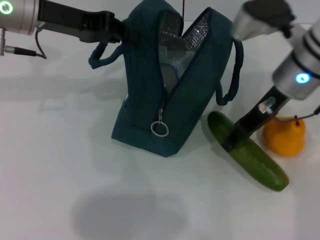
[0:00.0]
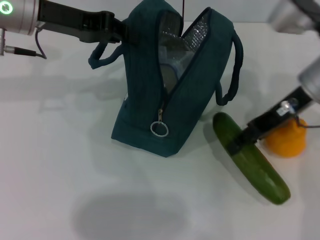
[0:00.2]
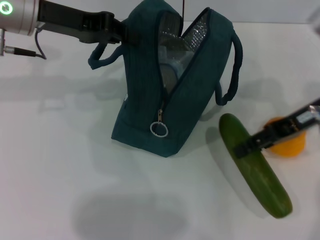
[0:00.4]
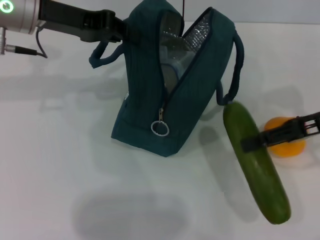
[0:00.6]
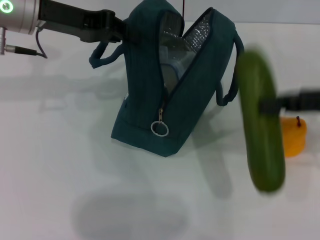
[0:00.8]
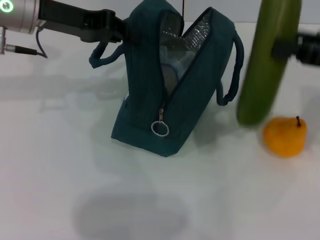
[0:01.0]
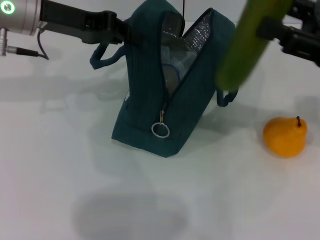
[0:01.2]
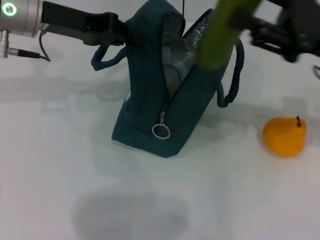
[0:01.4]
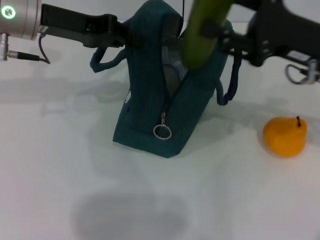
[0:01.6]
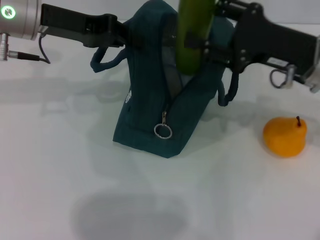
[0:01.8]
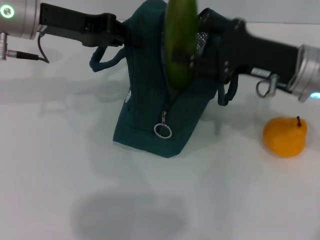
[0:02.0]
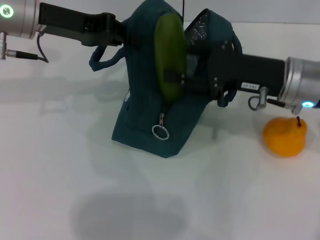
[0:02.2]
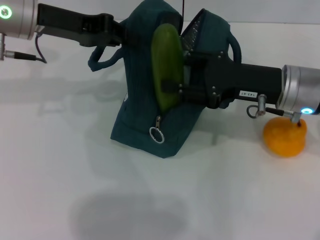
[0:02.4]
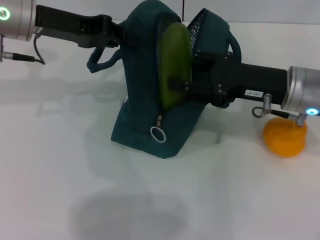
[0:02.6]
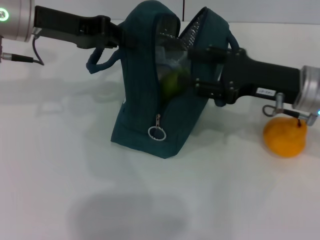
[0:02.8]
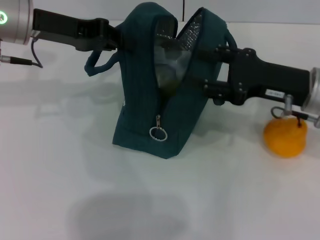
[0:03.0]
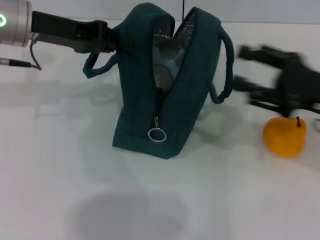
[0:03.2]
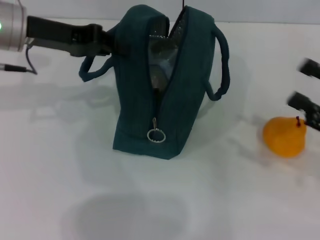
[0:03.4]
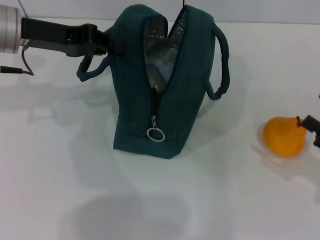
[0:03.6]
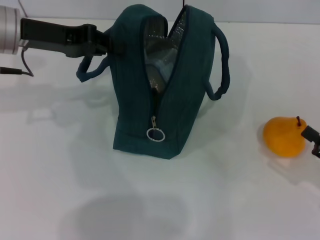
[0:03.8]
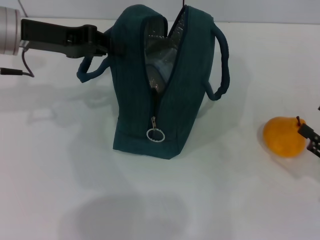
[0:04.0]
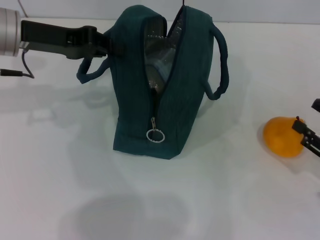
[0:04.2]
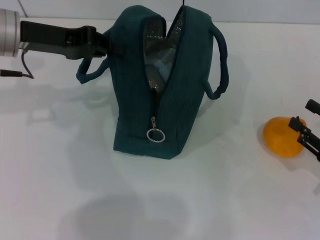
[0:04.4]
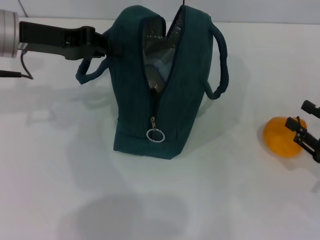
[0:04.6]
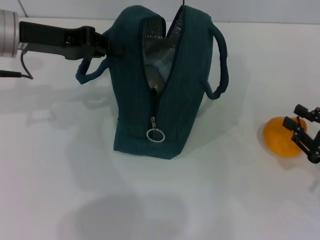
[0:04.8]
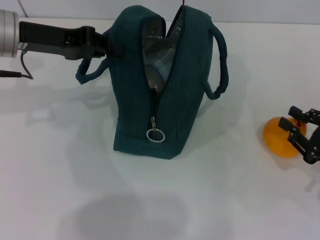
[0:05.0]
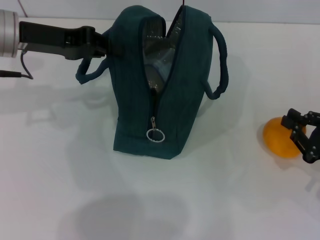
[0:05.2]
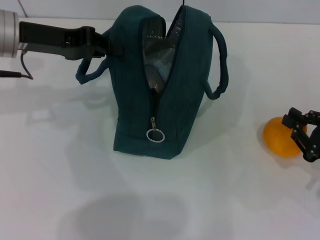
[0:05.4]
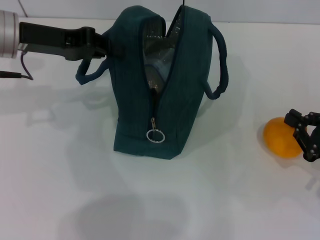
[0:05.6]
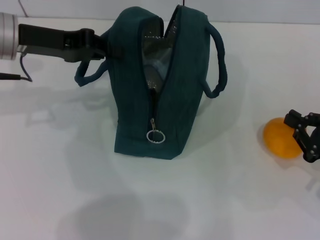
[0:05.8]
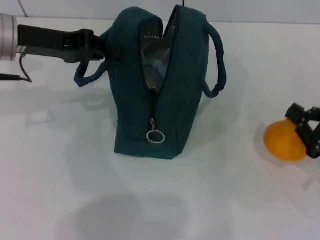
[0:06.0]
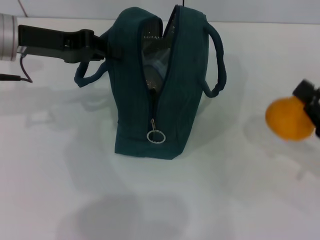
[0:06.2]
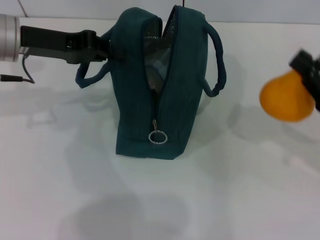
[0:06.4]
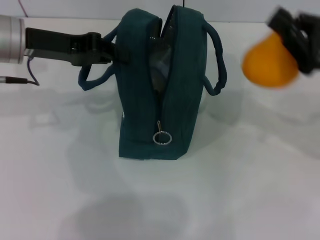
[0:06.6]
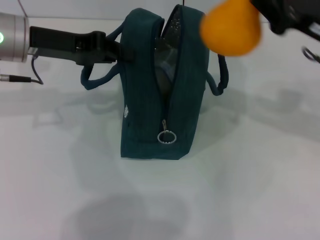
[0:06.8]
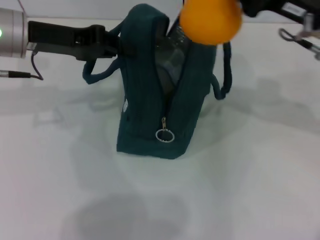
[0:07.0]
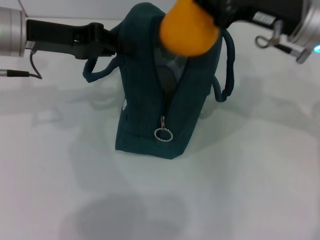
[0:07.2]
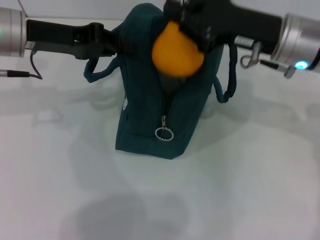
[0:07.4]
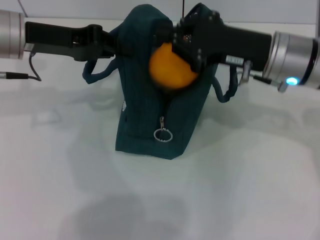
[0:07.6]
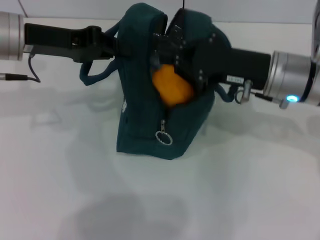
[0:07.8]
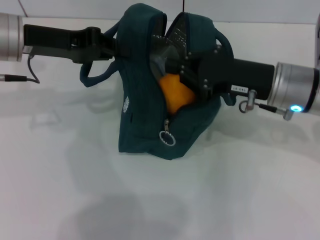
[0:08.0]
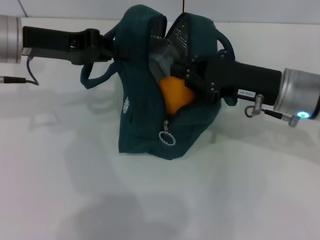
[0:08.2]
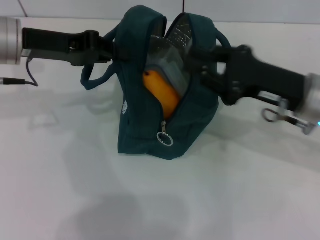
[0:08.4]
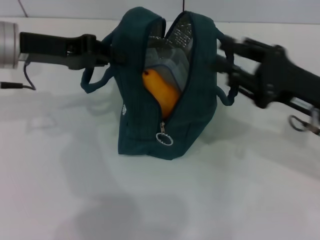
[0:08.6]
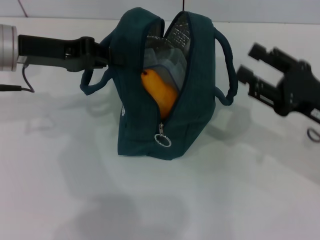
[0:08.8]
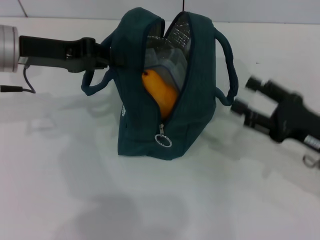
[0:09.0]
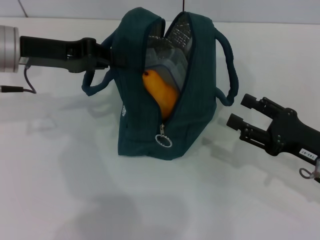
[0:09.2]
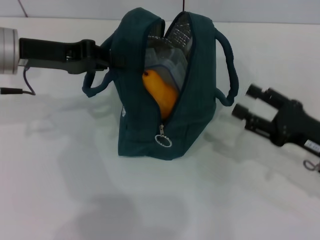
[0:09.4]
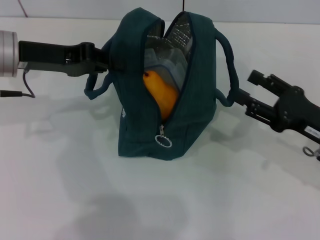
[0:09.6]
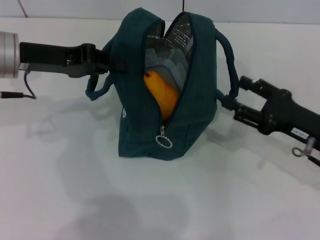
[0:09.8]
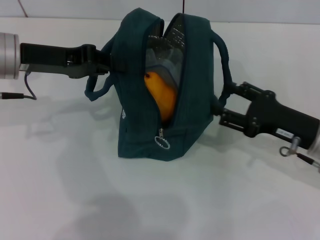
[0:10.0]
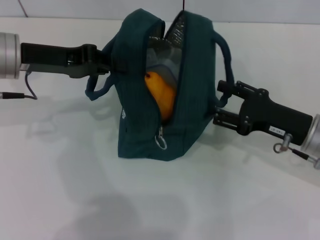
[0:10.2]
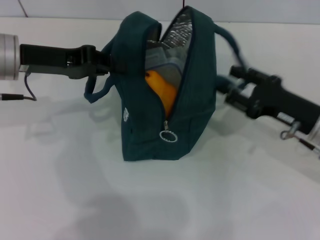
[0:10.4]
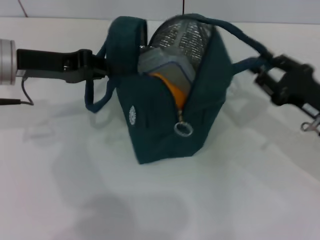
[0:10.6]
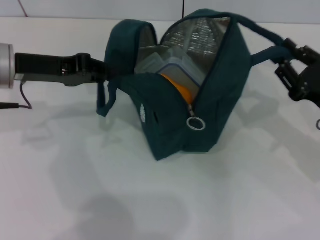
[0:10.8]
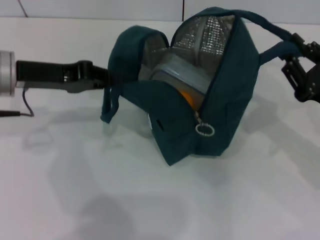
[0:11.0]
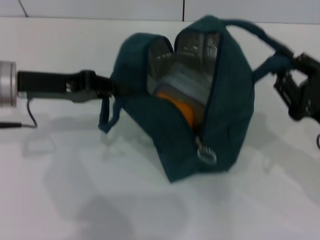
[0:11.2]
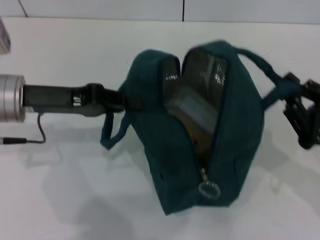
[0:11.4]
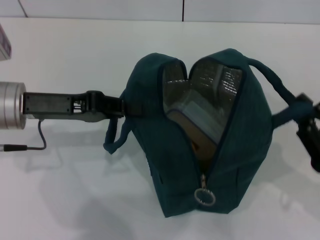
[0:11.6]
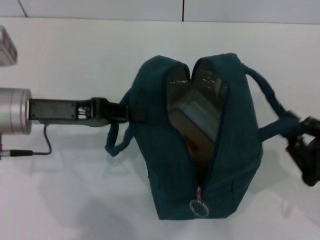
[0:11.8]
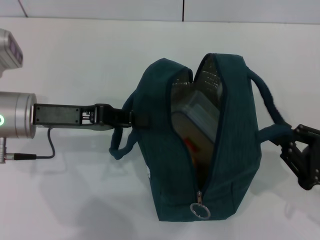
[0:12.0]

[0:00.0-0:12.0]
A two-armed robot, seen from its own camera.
Step, 0:00.0 to 0:02.8: Put the cucumber into the lunch bag with your right hand.
Step, 0:03.2 to 0:05.6: Grab the pear with your right hand.
0:00.0 to 0:01.6: The right gripper heads to the right, covering some 5 cm.
0:03.0 to 0:04.4: The right gripper is displaced to the right, backward and downward by approximately 20 cm.
0:04.4 to 0:06.0: The right gripper closes.
0:06.0 to 0:07.6: The right gripper heads to the left, forward and upward, covering some 25 cm.
0:07.6 to 0:09.0: The right gripper shifts approximately 15 cm to the right, backward and downward, and opens up.
0:09.0 to 0:10.4: There are only small adjustments of the grippers.
0:10.4 to 0:12.0: The left gripper moves backward, about 5 cm, while the right gripper shifts roughly 10 cm backward and to the right, and closes.

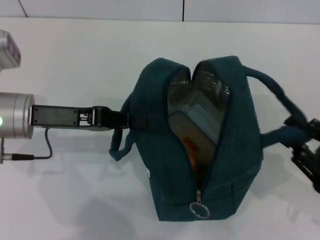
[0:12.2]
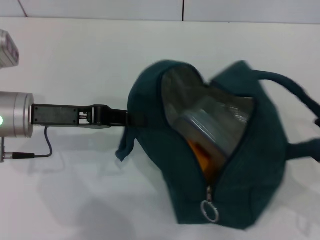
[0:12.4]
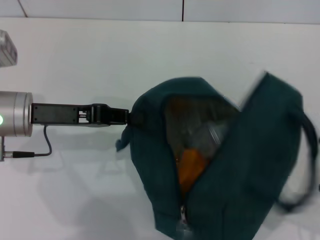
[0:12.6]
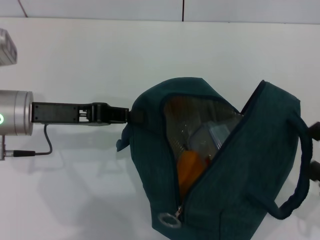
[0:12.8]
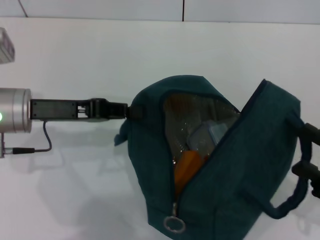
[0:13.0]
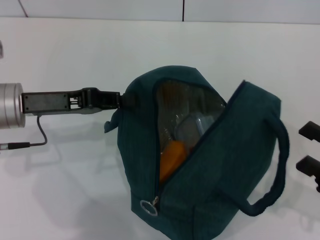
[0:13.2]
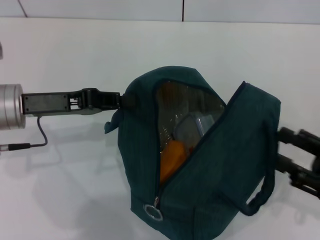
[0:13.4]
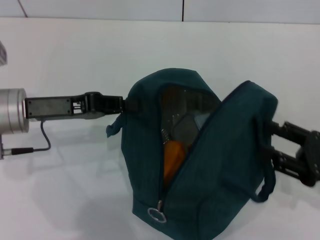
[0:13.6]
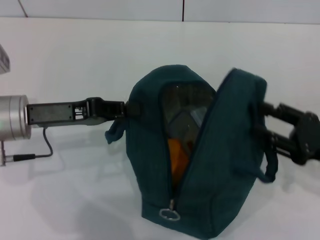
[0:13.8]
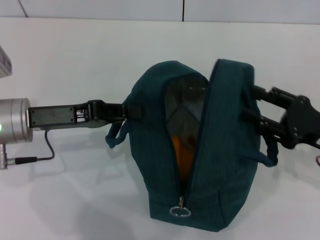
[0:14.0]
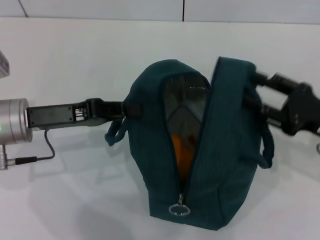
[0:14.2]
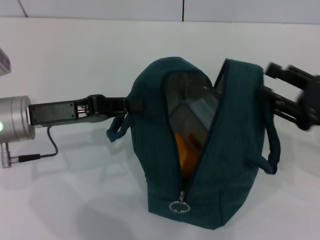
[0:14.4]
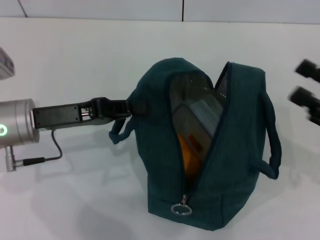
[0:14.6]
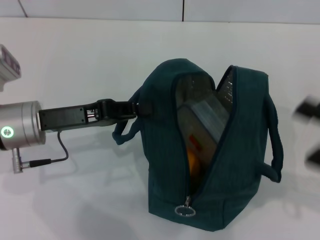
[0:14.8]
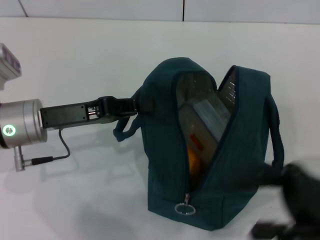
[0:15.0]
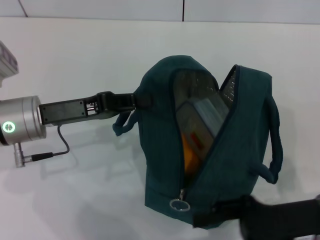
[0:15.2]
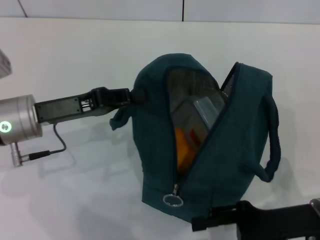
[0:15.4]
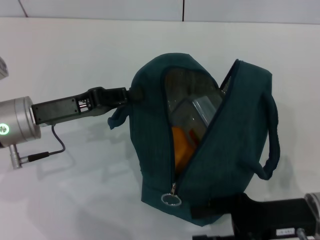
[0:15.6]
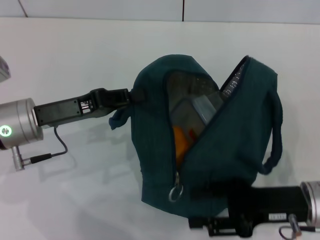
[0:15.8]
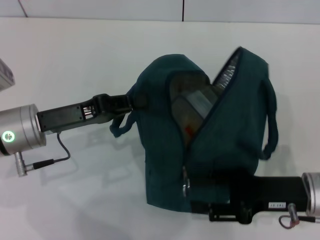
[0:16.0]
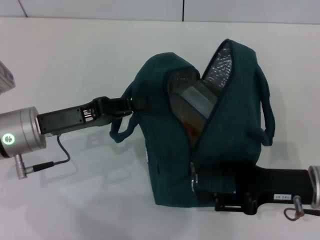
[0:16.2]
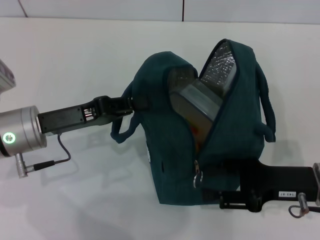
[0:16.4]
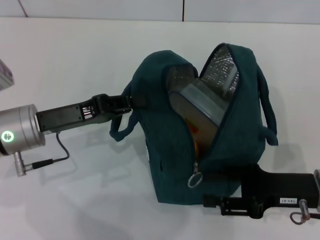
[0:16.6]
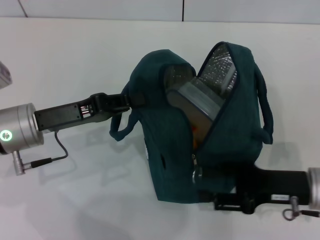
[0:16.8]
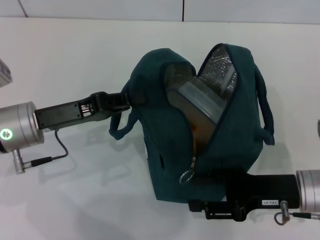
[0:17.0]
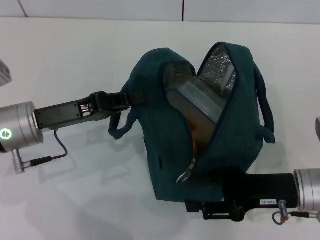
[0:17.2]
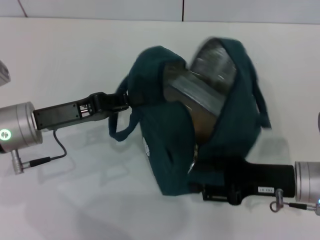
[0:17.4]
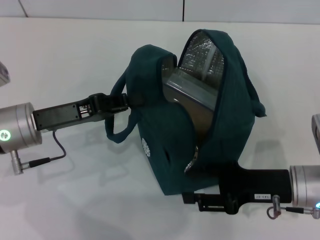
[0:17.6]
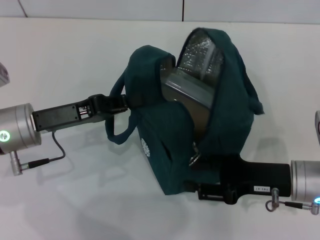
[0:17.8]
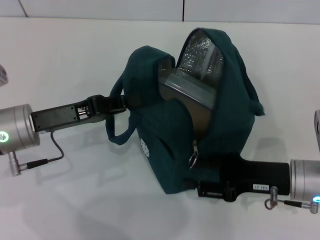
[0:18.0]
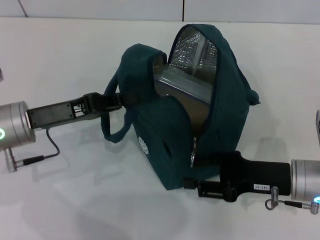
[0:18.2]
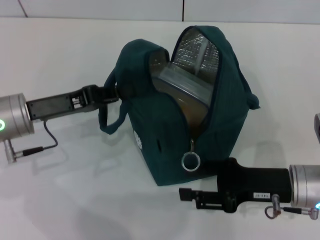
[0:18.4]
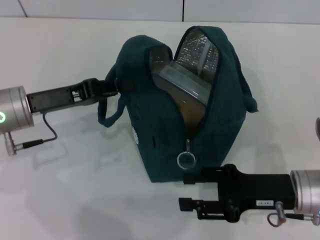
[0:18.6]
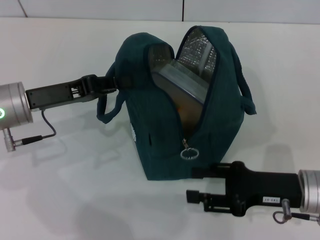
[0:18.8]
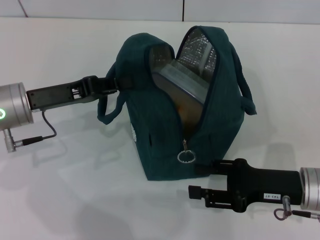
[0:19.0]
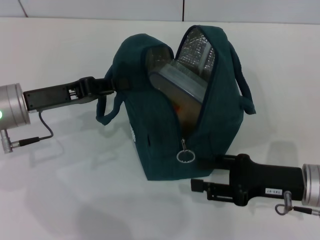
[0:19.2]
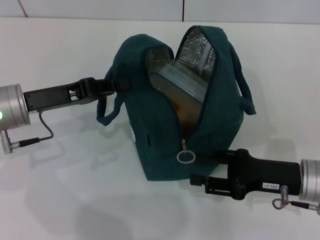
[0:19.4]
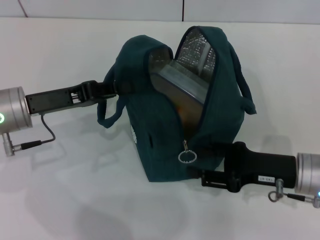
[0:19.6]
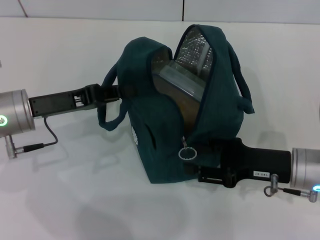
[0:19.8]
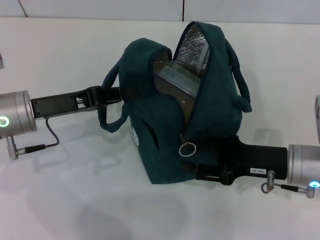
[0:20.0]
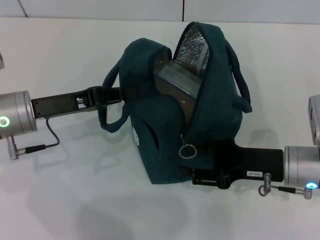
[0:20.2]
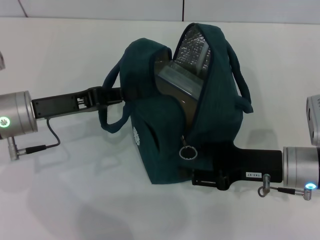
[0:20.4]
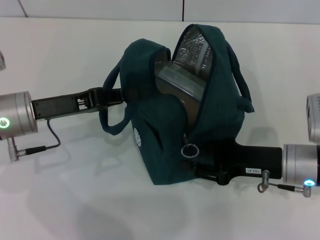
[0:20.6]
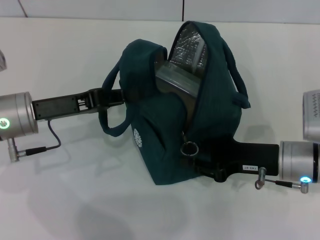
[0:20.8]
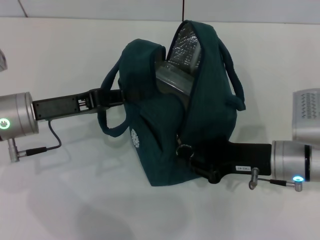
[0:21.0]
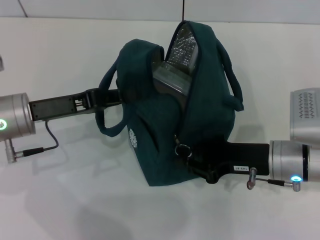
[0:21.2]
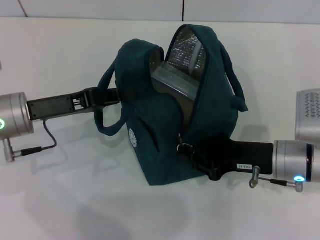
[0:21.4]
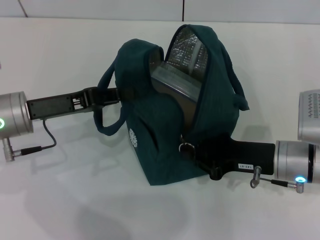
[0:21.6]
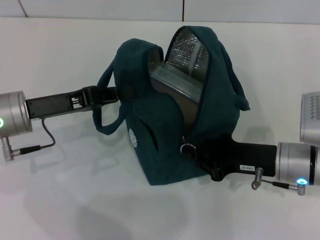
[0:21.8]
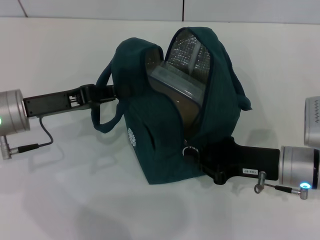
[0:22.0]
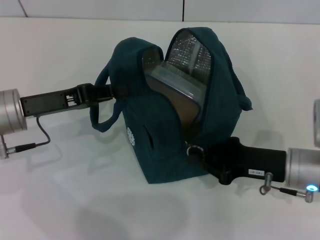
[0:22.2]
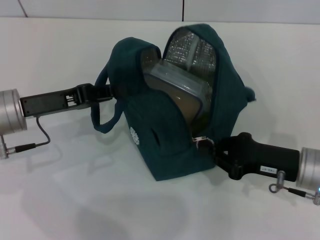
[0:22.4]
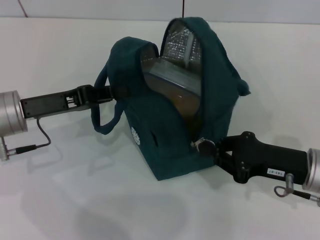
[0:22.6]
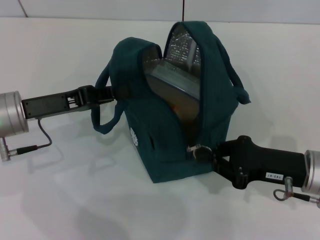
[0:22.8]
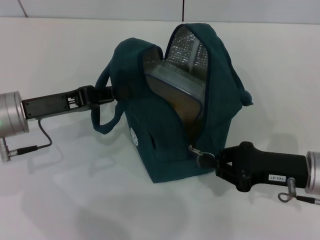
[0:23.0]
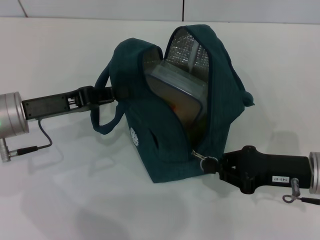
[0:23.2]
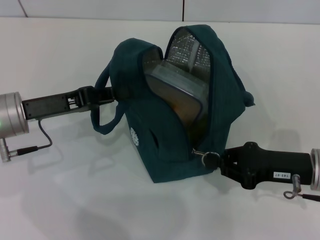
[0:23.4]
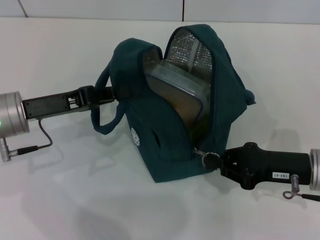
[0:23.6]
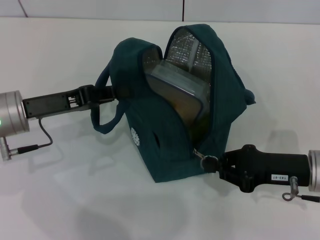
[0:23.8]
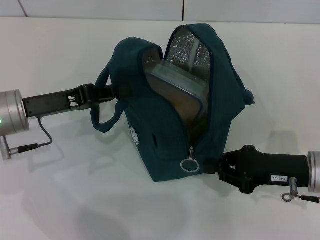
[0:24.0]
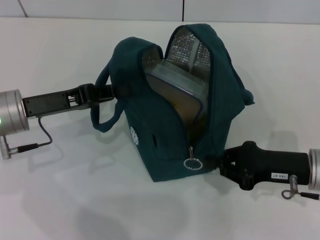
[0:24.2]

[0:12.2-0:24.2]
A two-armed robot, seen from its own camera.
0:12.2 to 0:13.8: The right gripper is displaced forward by approximately 5 cm, and opens its fingers.
0:13.8 to 0:15.2: The right gripper heads to the left, covering some 5 cm.
0:18.2 to 0:19.8: There are only small adjustments of the grippers.
0:19.8 to 0:21.2: The right gripper closes up.
0:21.2 to 0:22.6: The right gripper ends up some 5 cm from where it was.
0:22.6 to 0:24.2: There are only small adjustments of the grippers.
